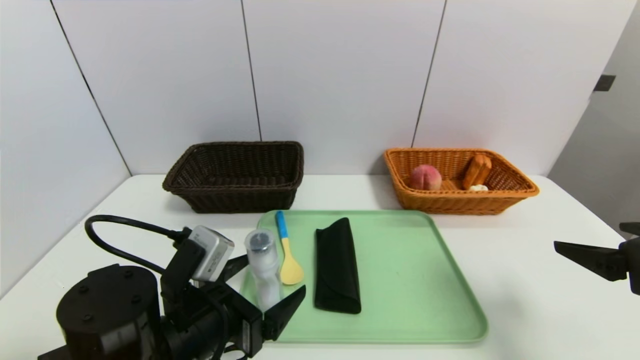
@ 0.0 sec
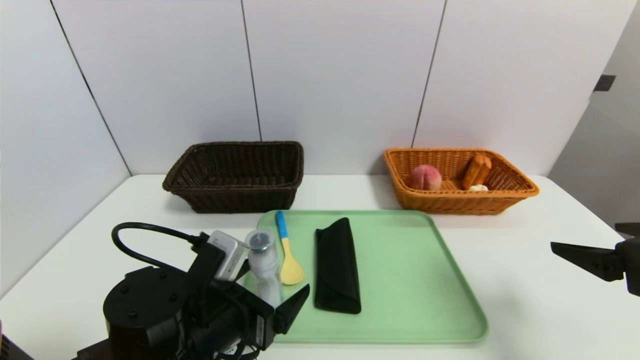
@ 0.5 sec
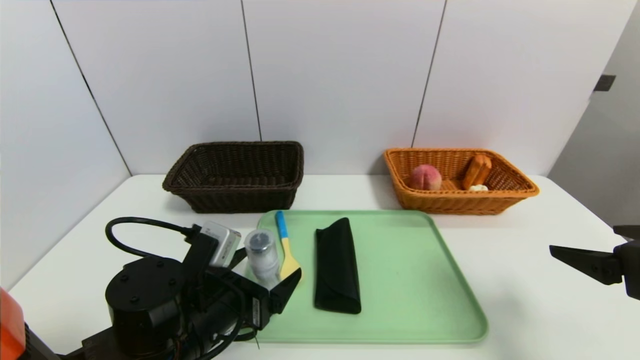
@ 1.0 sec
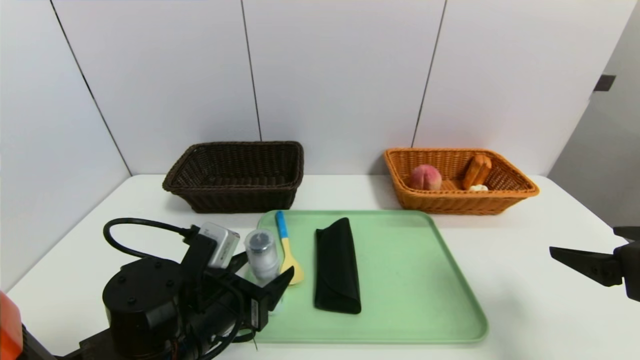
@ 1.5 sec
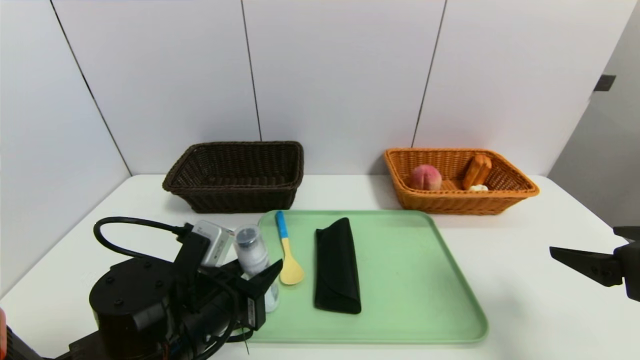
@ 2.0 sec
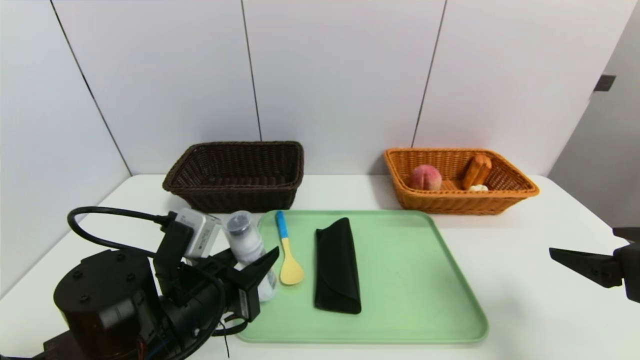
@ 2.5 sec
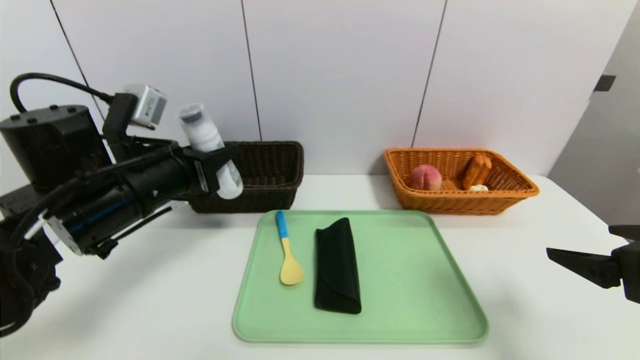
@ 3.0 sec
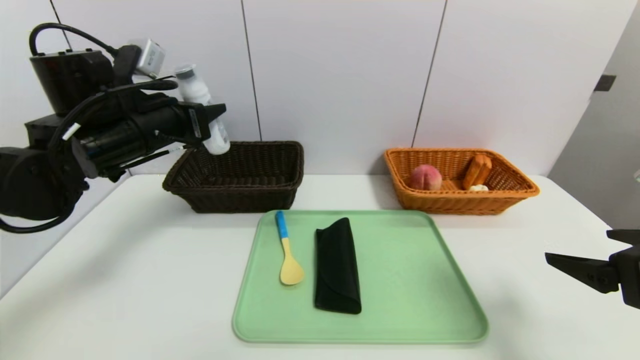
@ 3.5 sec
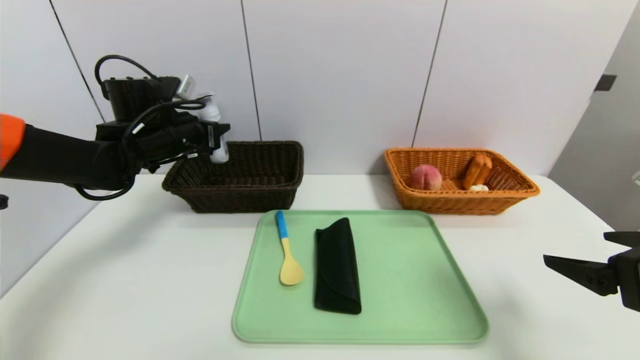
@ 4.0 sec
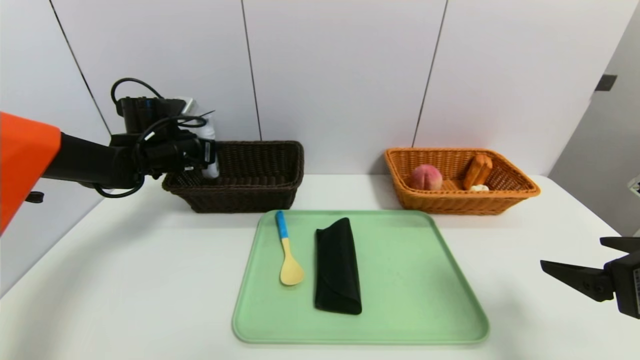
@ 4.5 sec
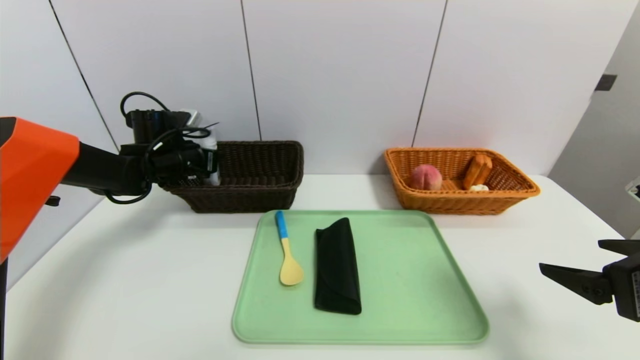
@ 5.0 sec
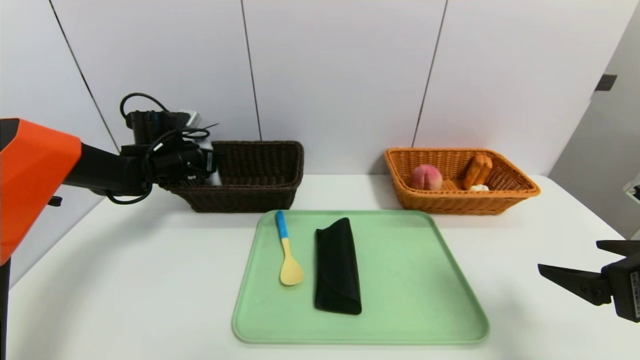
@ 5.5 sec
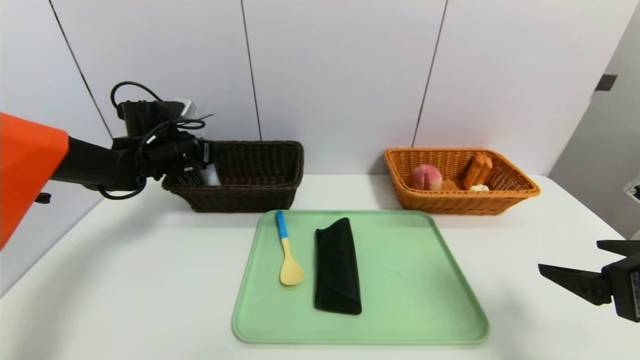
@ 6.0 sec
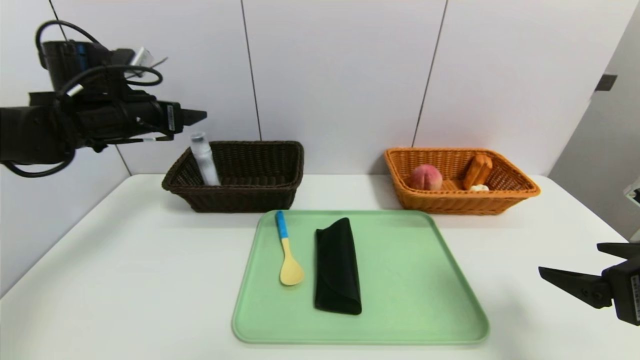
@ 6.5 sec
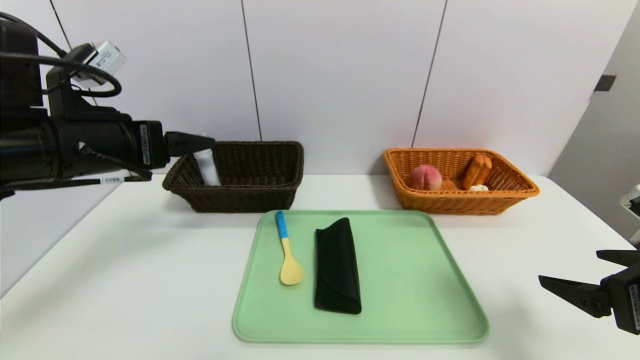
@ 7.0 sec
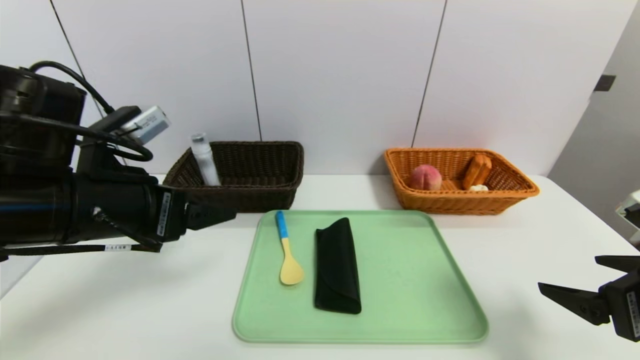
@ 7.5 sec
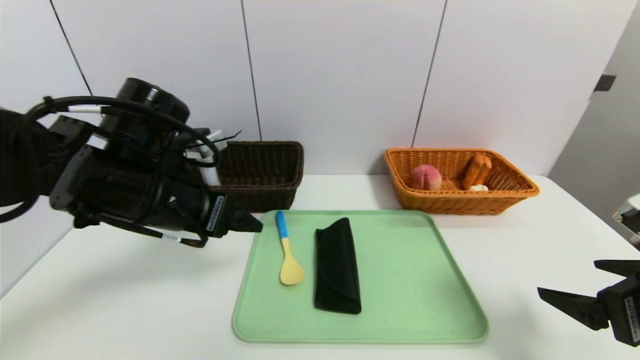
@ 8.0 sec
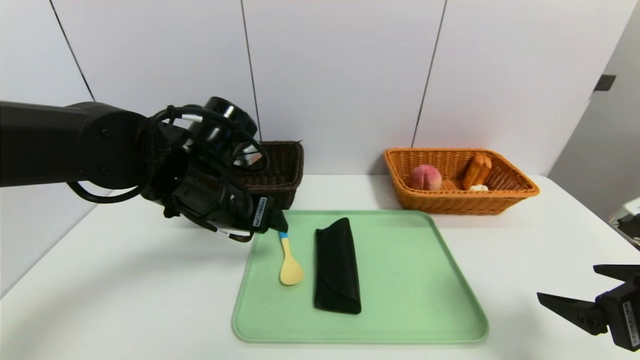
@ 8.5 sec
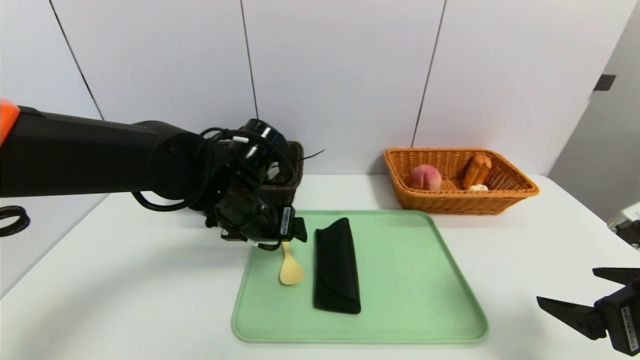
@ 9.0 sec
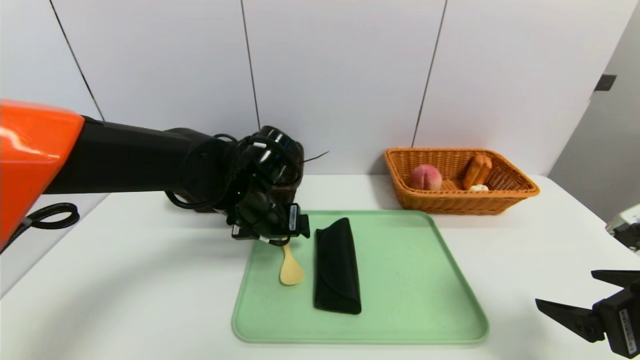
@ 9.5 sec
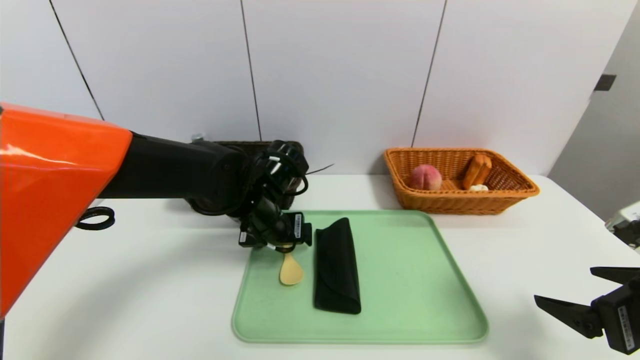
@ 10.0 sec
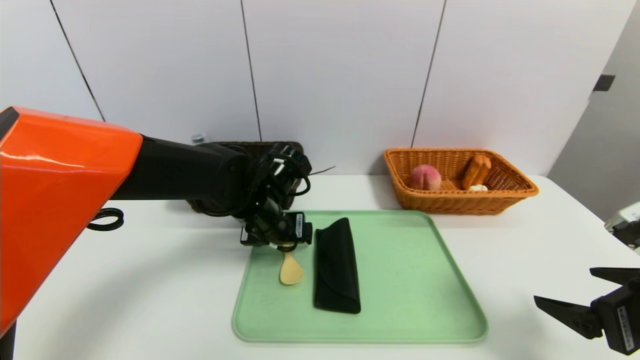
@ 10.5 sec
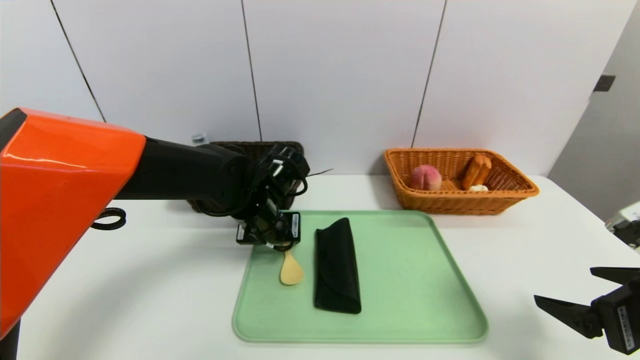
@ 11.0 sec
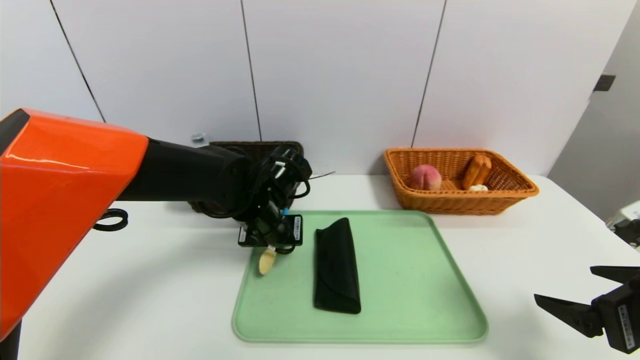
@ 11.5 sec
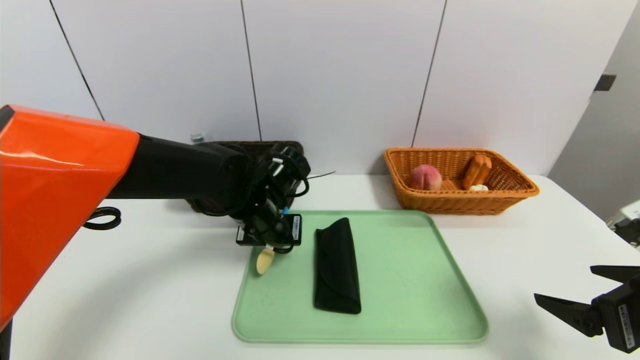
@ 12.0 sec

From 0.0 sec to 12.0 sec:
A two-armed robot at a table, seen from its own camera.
Task of the whole recording: place the food in the right basket with the right gripper, and place the non food items in the left basket with the left gripper.
Step, from 0.0 sec to 6.5 sec: Grasp the washing liquid and put it in the left basket.
From 0.0 sec to 2.0 sec: The left gripper closes.
From 2.0 sec to 4.0 sec: The left gripper is displaced forward, upward and to the left by approximately 30 cm.
From 4.0 sec to 6.0 sec: The left gripper shifts by roughly 5 cm, and opens its fingers.
From 6.0 sec to 8.0 sec: The left gripper travels backward and to the right by about 25 cm.
From 8.0 sec to 10.0 sec: The left gripper shifts about 15 cm to the right, downward and forward.
From 10.0 sec to 12.0 sec: The left gripper closes.

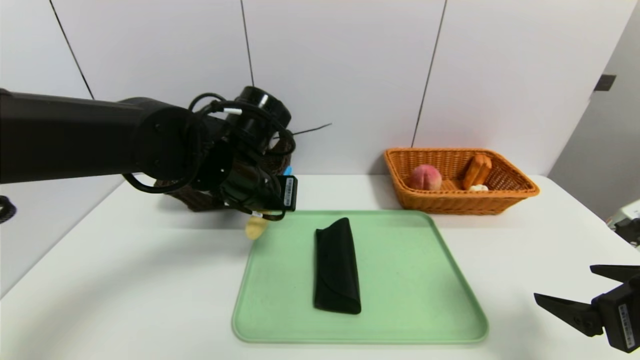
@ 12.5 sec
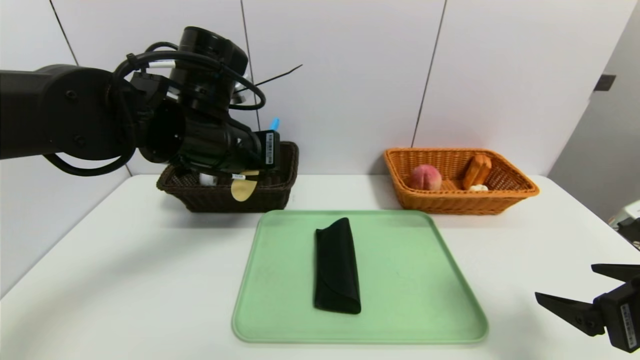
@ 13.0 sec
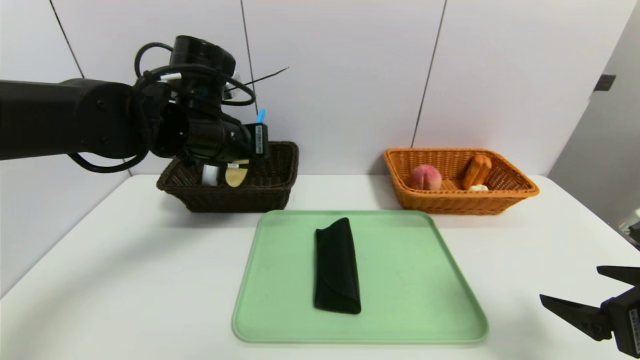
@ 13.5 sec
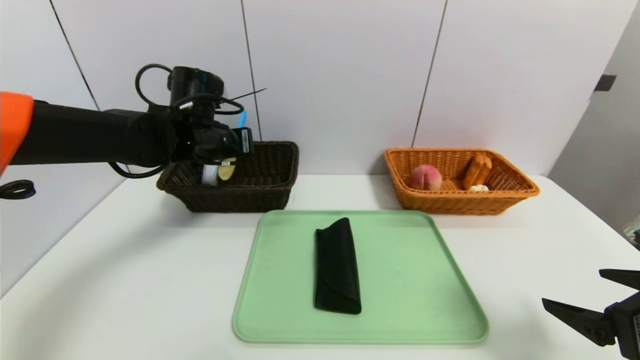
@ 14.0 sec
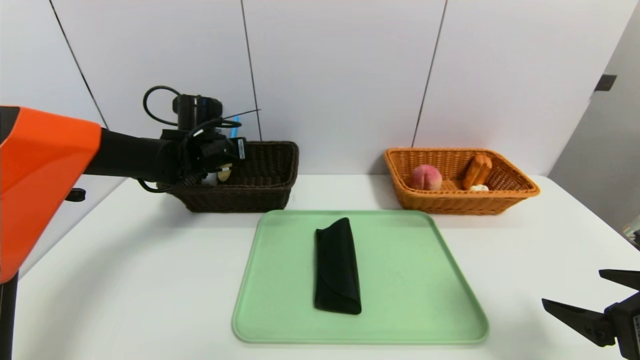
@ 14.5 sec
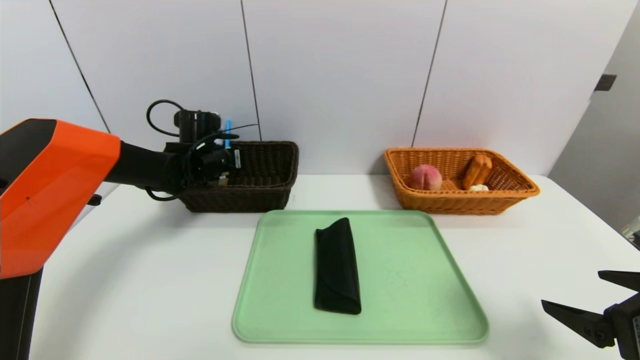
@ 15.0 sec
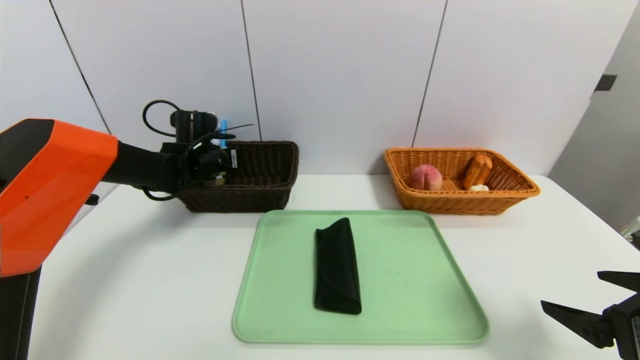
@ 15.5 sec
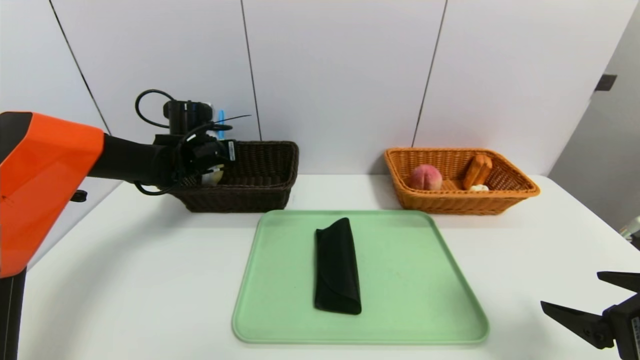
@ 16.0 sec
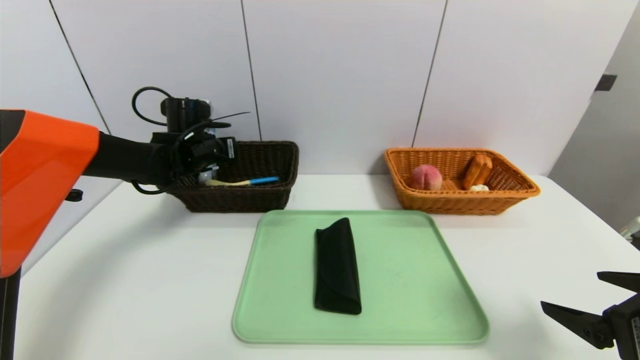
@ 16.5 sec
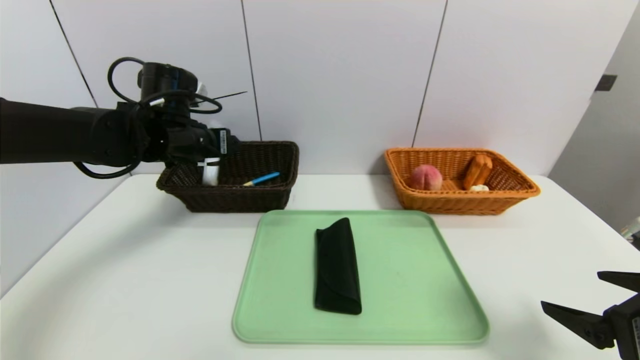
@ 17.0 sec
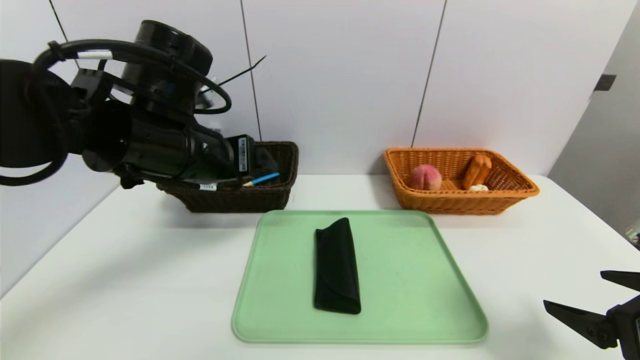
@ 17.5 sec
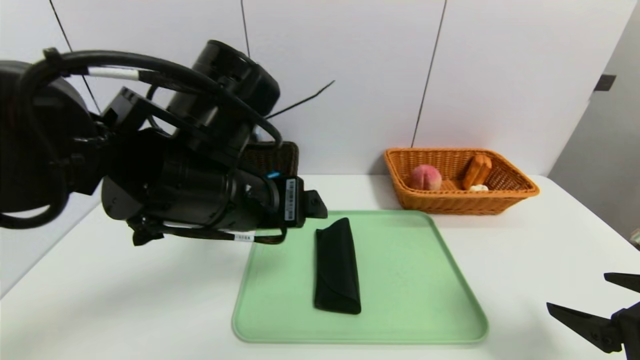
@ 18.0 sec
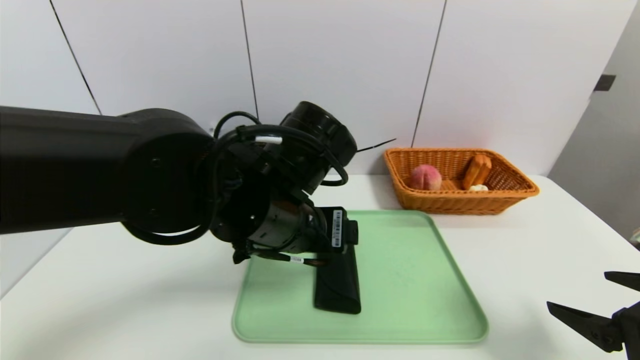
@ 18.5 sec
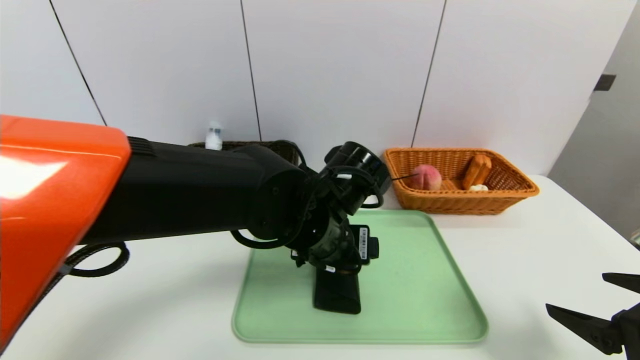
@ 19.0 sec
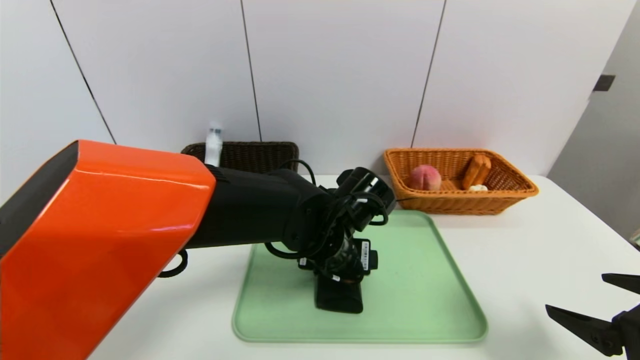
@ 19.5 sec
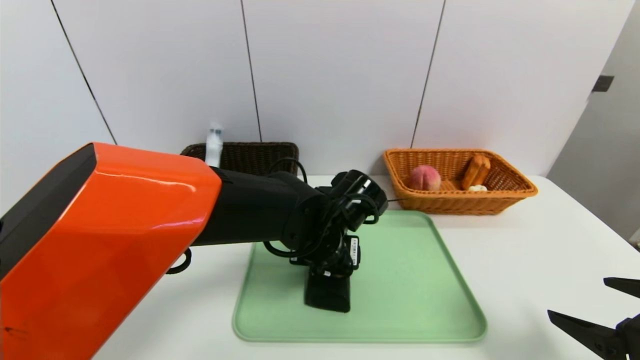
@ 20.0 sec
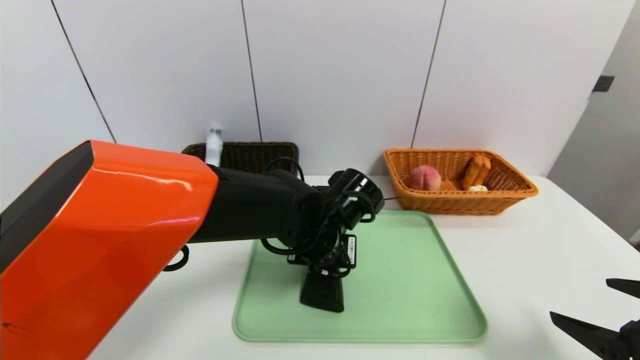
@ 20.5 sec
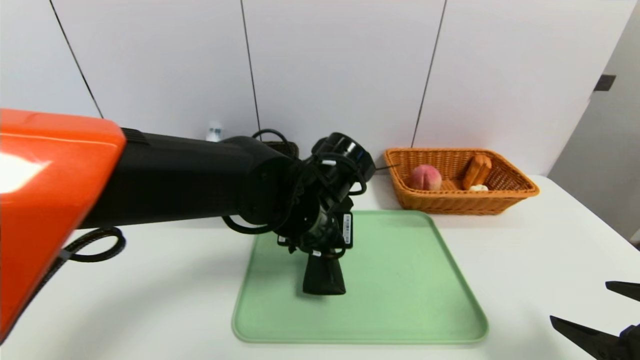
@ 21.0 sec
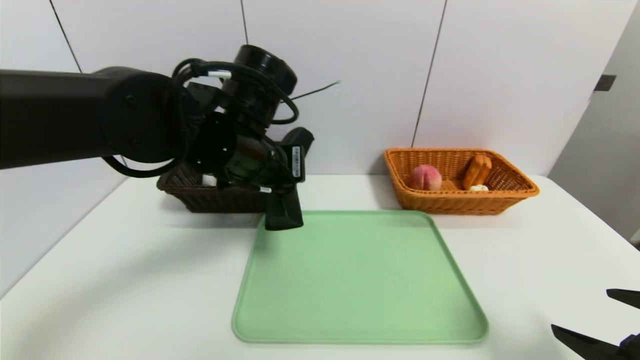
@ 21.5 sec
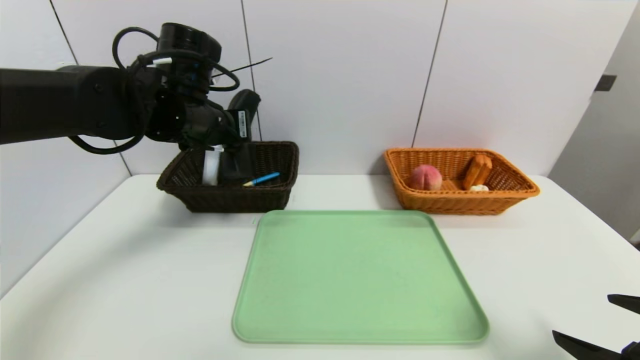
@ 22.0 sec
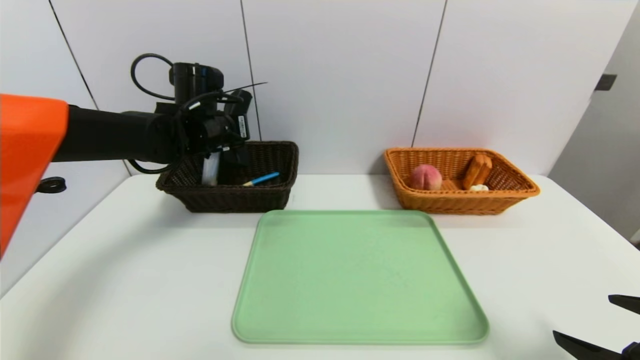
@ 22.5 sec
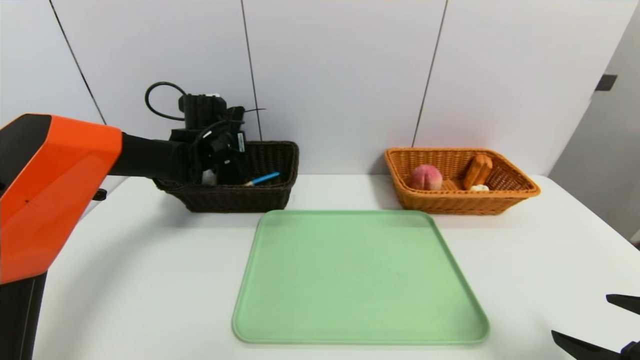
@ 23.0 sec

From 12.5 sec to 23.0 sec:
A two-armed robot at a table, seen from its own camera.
Task of the whole recording: place the food in the right basket with the right gripper, and place the non food items in the left basket with the left gripper.
Step, from 12.5 sec to 16.5 sec: Grasp the spoon and put it in the left basket.
From 12.5 sec to 14.5 sec: The left gripper moves forward and to the left, about 20 cm.
From 14.5 sec to 16.5 sec: The left gripper opens up.
From 16.5 sec to 19.0 sec: The left gripper shifts roughly 30 cm to the right and backward, and opens up.
From 19.0 sec to 21.0 sec: The left gripper closes its fingers.
From 21.0 sec to 23.0 sec: The left gripper moves forward and to the left, roughly 25 cm.
